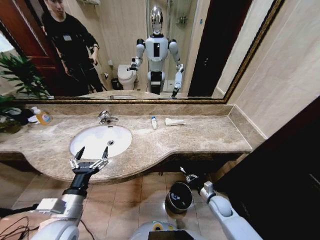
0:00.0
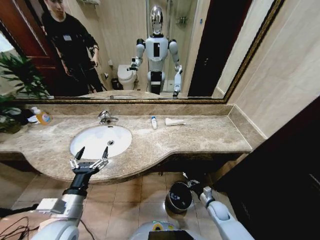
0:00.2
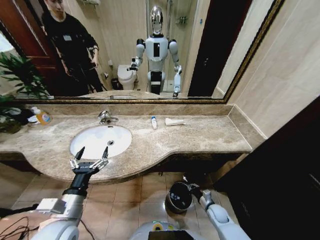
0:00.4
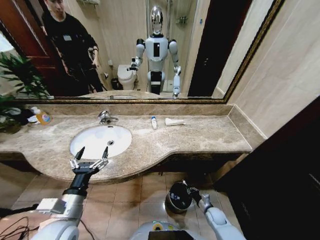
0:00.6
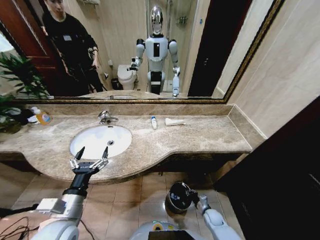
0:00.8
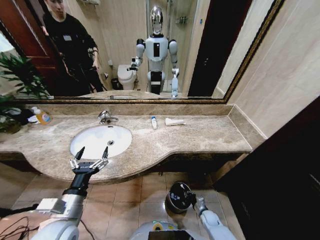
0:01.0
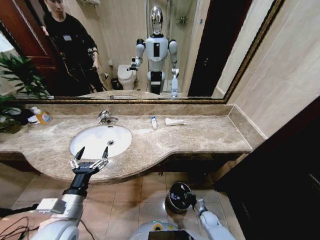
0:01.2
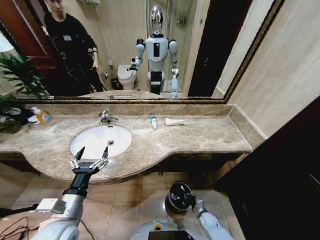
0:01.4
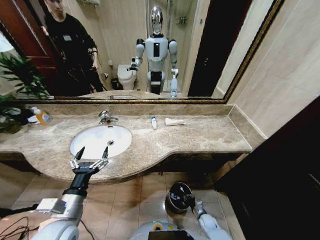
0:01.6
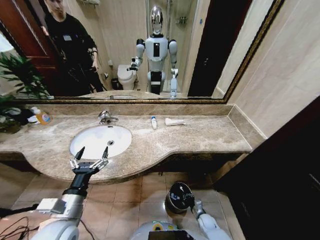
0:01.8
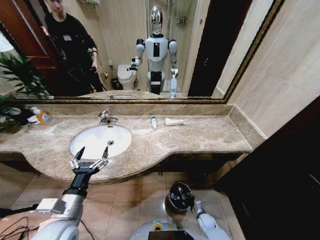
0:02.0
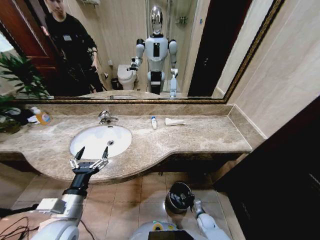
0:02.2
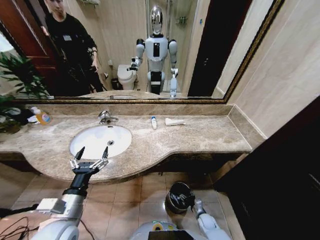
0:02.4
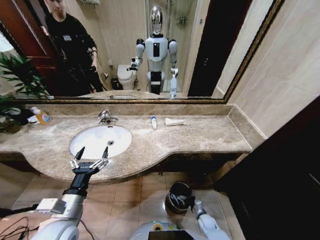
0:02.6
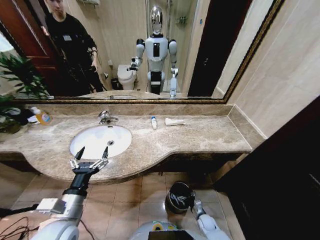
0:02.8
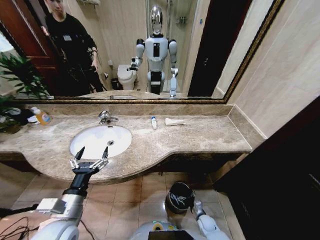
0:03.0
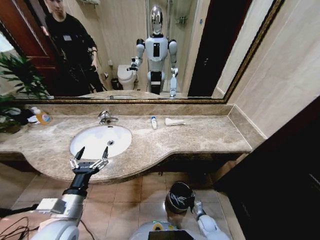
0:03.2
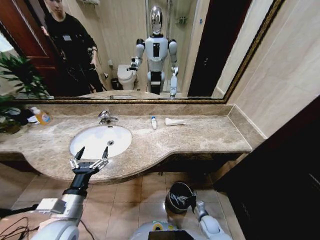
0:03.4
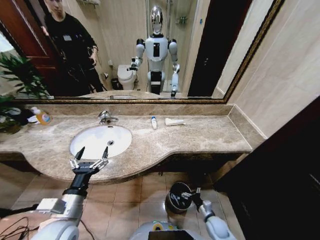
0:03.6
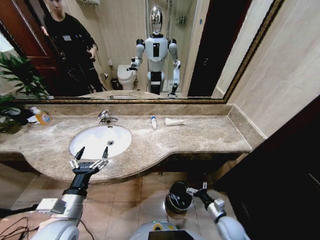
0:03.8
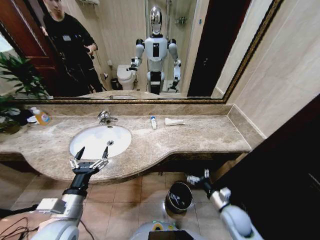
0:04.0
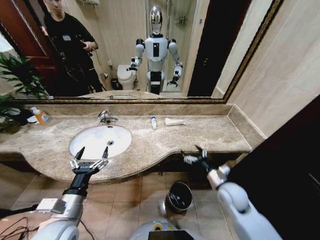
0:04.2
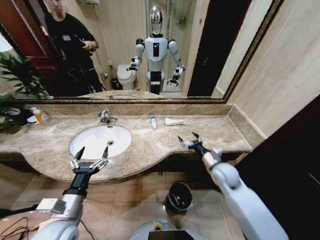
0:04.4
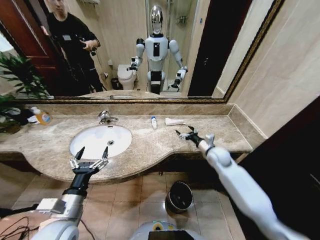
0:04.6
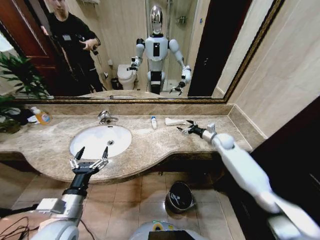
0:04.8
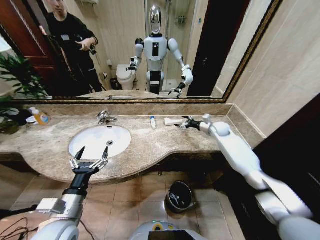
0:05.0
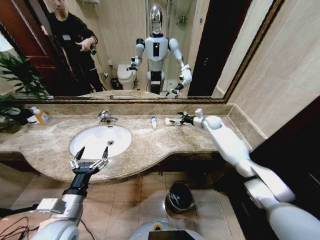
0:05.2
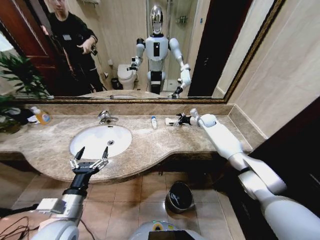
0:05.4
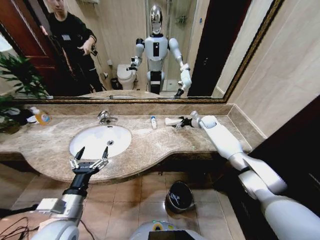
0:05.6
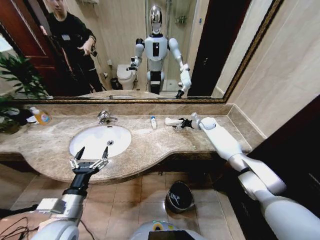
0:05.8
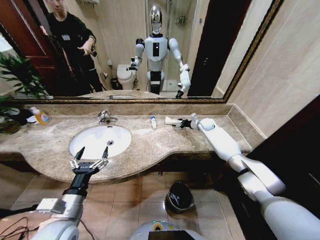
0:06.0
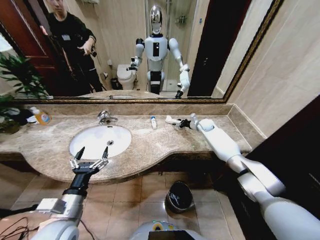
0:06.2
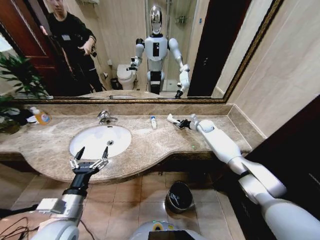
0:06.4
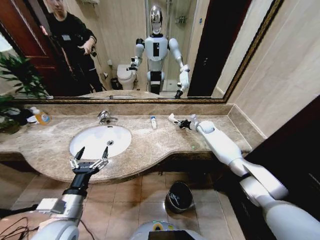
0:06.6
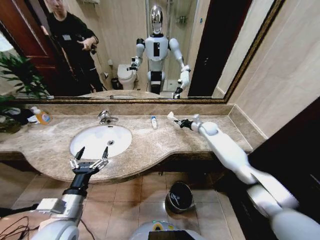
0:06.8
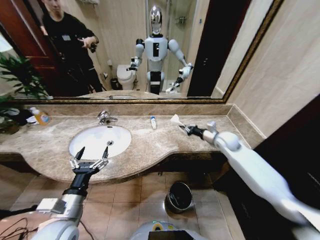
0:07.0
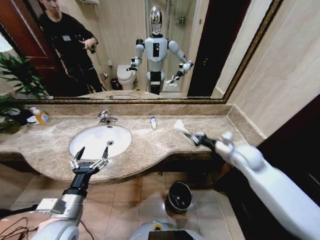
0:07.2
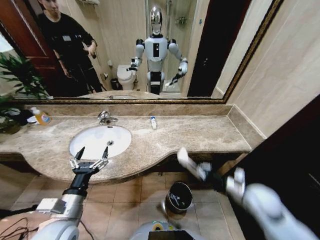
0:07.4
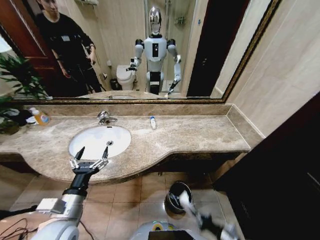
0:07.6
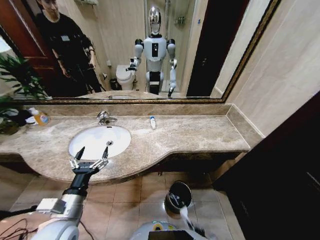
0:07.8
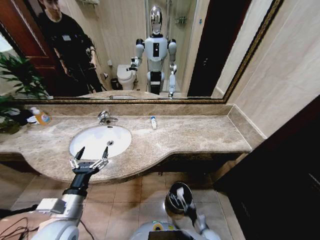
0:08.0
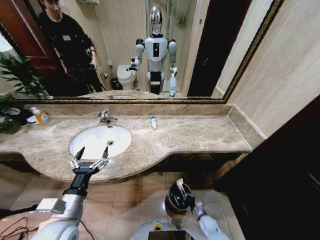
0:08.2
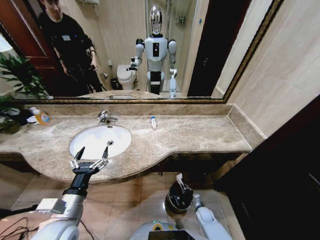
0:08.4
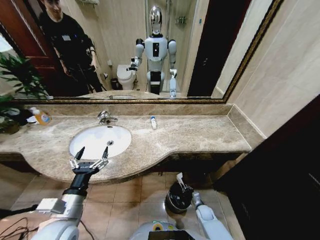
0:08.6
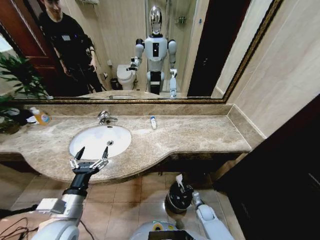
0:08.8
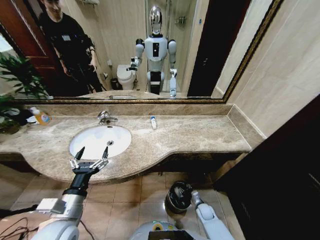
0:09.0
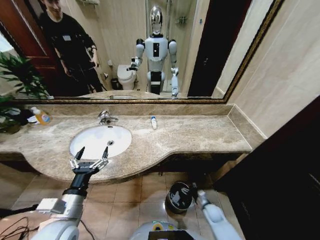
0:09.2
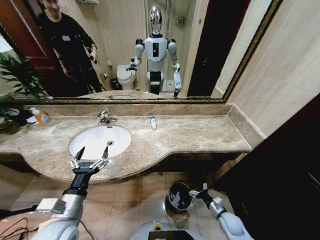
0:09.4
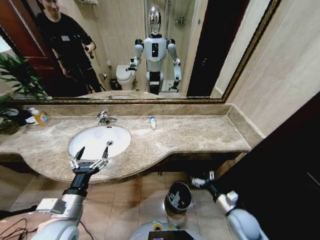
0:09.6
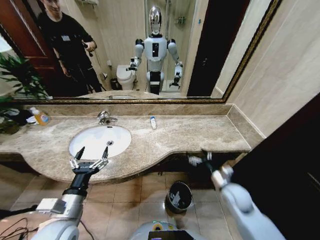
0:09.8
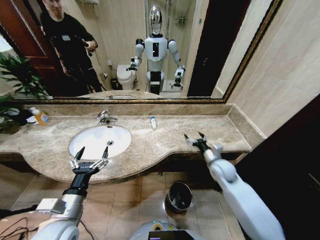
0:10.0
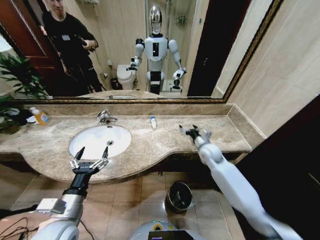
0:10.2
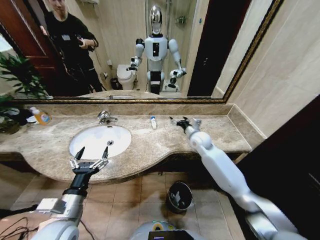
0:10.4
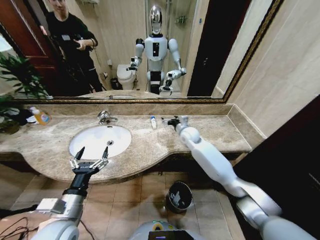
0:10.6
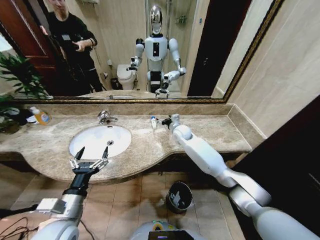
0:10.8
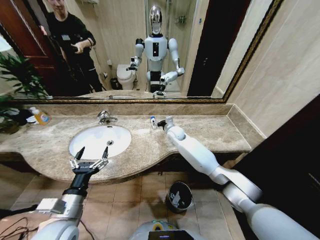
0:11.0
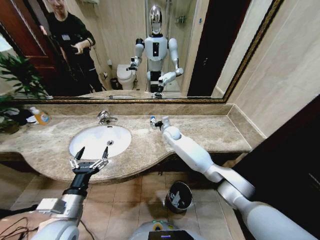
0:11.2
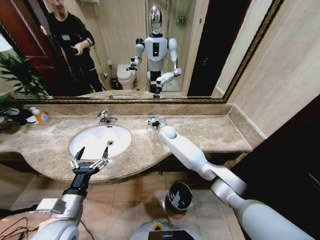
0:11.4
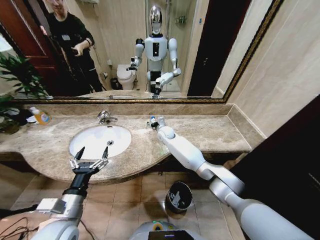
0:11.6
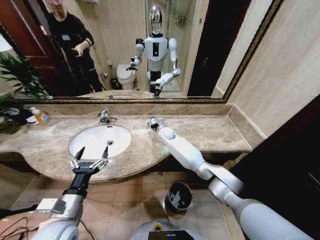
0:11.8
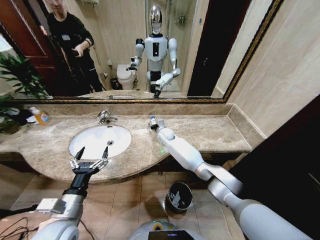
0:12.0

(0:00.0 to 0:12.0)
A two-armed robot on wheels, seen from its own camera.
Task of the whole recording: Pick up the trash from the sink and place it in the trash bin.
0:00.0 - 0:01.6: The right gripper goes some 15 cm downward.
0:03.0 - 0:04.4: The right gripper moves upward, roughly 35 cm.
0:04.4 - 0:06.0: The right gripper moves forward, some 30 cm.
0:06.0 - 0:07.6: The right gripper goes roughly 60 cm backward, and closes up.
0:07.6 - 0:09.0: The right gripper moves forward and downward, about 20 cm, and opens.
0:09.0 - 0:10.4: The right gripper heads upward and forward, covering about 40 cm, and opens.
0:10.4 - 0:12.0: The right gripper travels to the left and forward by about 20 cm.

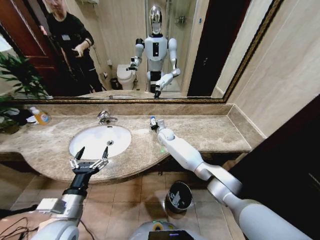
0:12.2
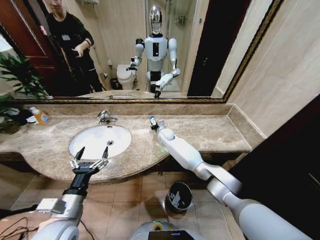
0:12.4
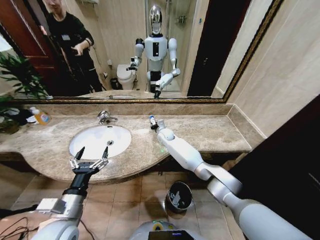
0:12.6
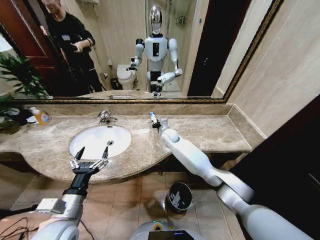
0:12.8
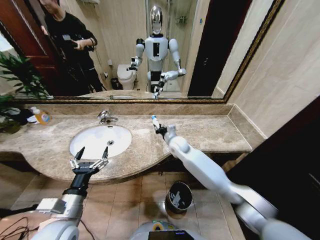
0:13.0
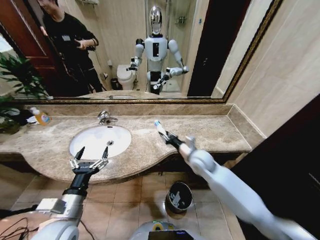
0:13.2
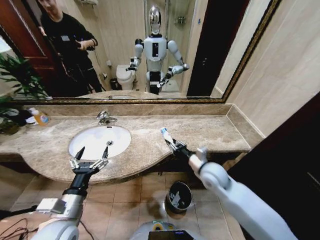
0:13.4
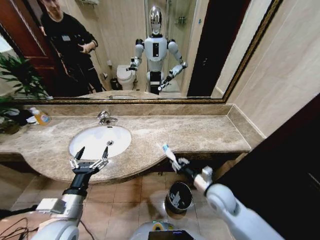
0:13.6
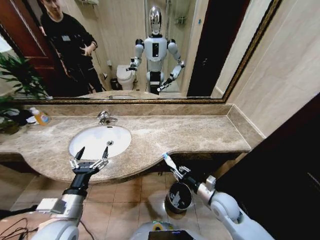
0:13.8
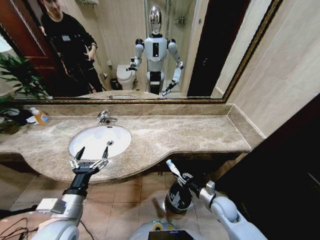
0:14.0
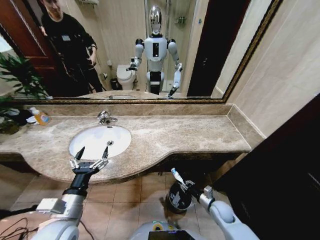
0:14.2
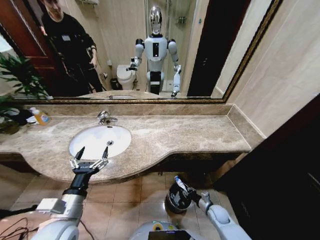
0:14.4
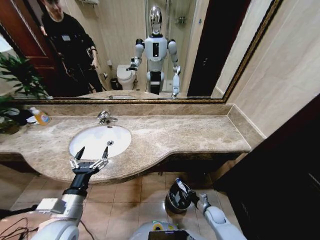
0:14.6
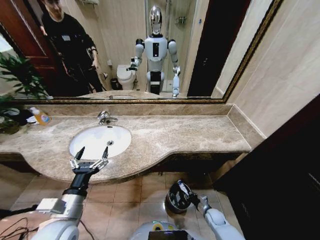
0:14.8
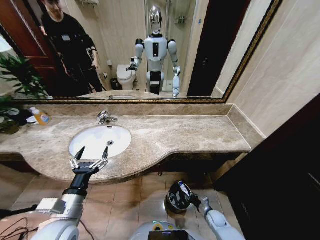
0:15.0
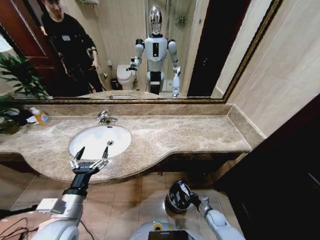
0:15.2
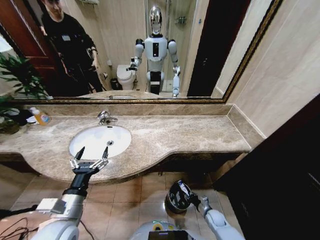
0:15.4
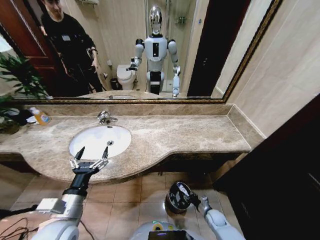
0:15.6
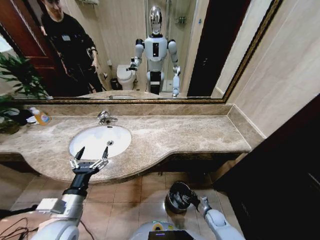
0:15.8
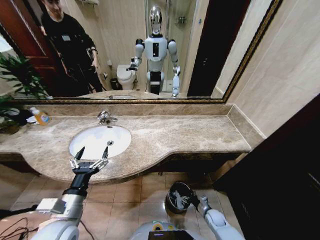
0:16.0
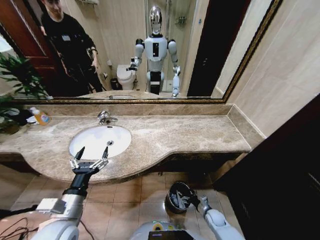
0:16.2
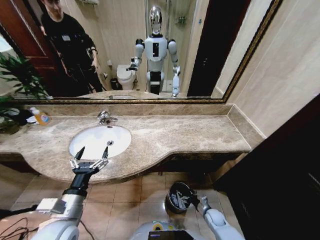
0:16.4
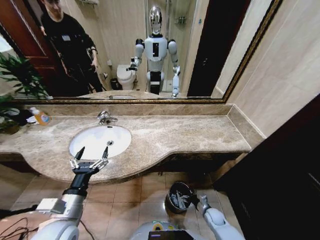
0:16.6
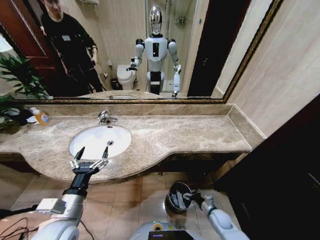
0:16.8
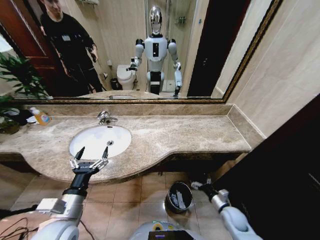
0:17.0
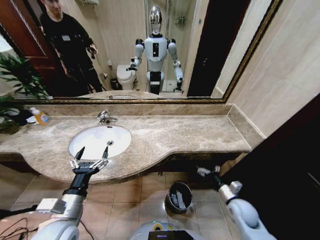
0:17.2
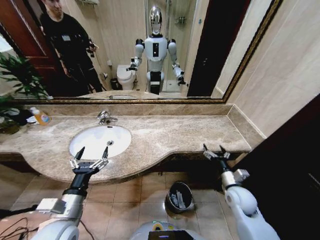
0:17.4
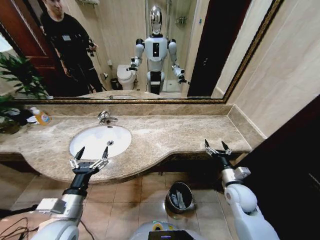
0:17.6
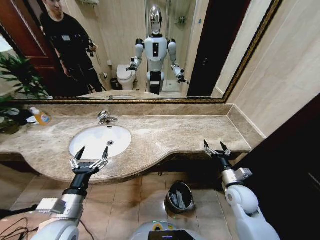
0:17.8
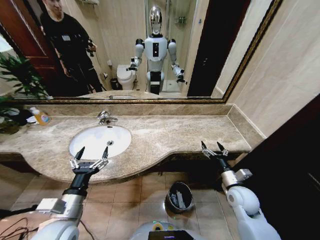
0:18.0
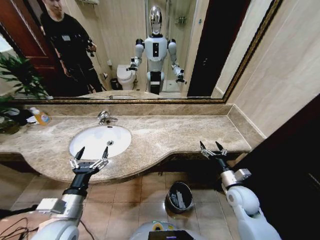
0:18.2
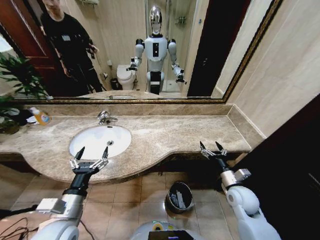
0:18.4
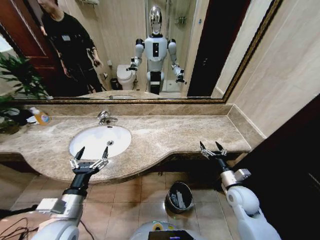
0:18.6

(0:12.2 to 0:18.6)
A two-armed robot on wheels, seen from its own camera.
Task of the whole recording: Pick up the trash from the sink and place it in the trash bin.
0:12.2 - 0:13.8: The right gripper goes roughly 40 cm backward and to the right.
0:13.8 - 0:15.4: The right gripper moves downward, roughly 25 cm.
0:15.4 - 0:17.0: The right gripper shifts approximately 15 cm upward, and opens its fingers.
0:17.0 - 0:18.6: The right gripper goes approximately 15 cm upward.
